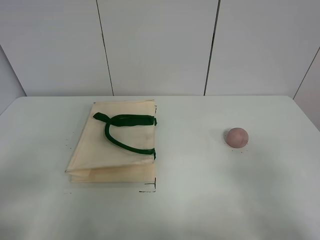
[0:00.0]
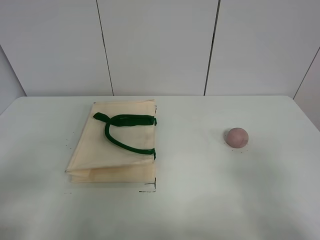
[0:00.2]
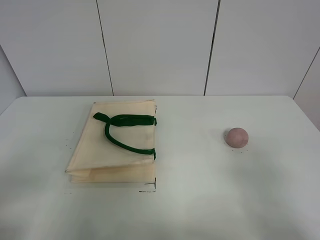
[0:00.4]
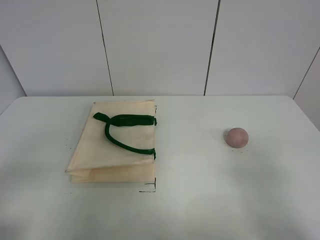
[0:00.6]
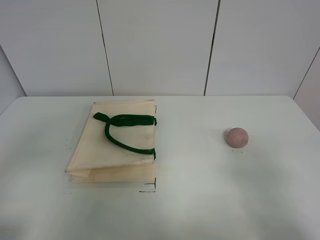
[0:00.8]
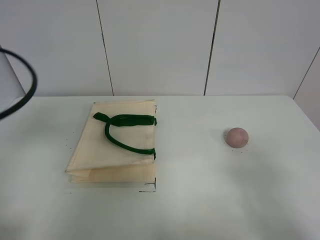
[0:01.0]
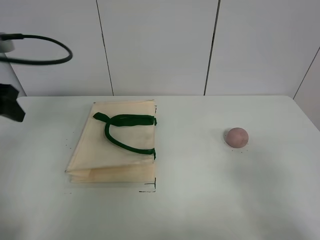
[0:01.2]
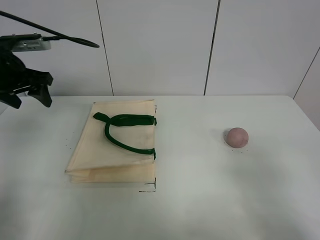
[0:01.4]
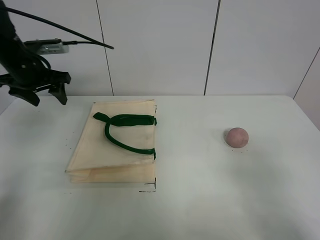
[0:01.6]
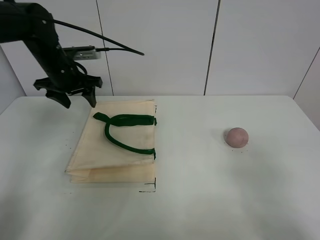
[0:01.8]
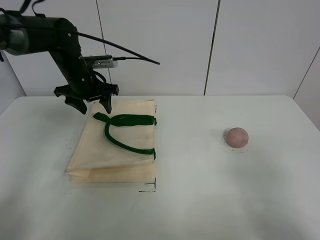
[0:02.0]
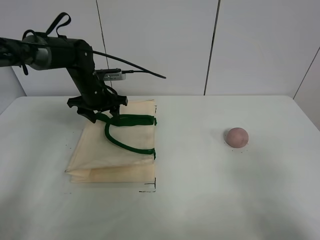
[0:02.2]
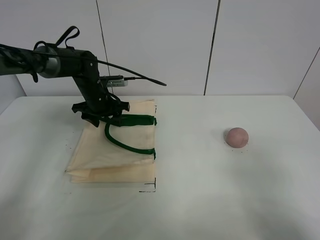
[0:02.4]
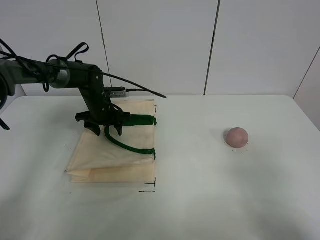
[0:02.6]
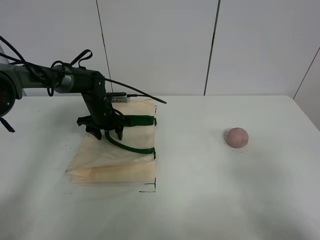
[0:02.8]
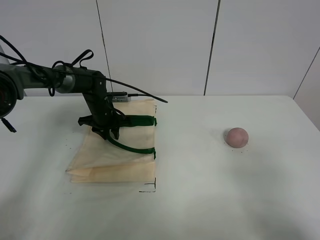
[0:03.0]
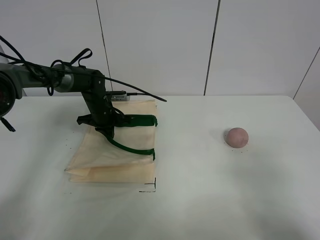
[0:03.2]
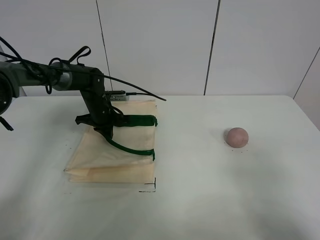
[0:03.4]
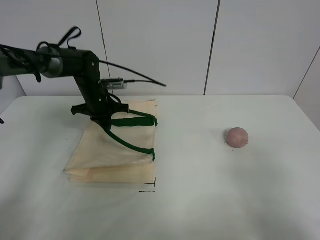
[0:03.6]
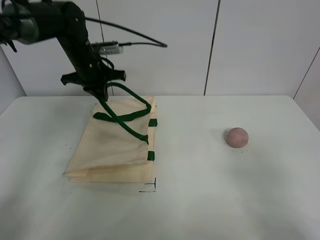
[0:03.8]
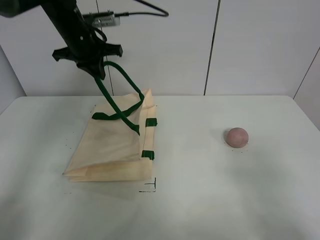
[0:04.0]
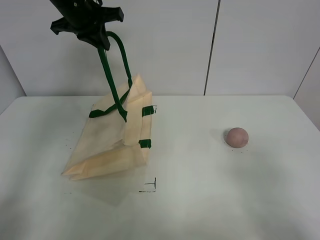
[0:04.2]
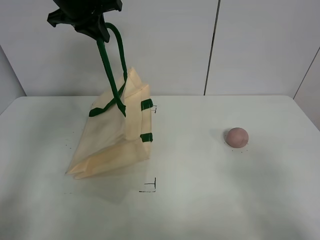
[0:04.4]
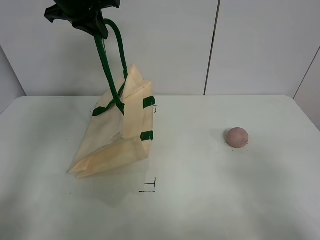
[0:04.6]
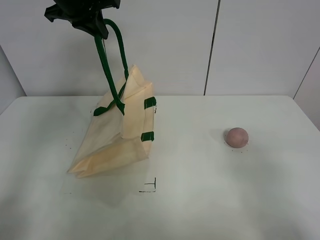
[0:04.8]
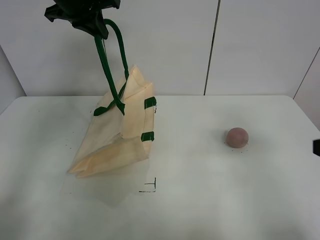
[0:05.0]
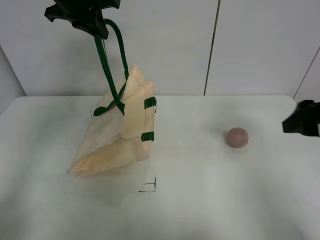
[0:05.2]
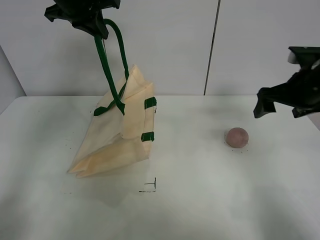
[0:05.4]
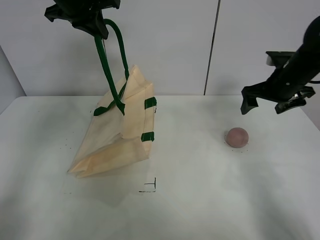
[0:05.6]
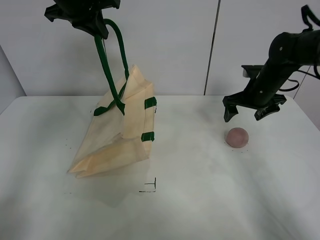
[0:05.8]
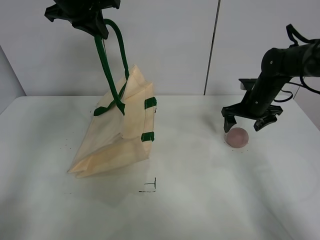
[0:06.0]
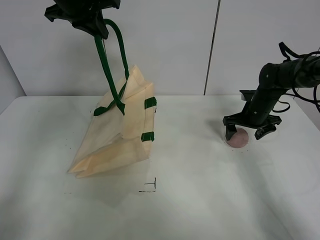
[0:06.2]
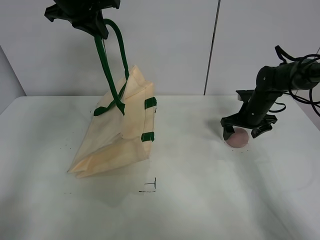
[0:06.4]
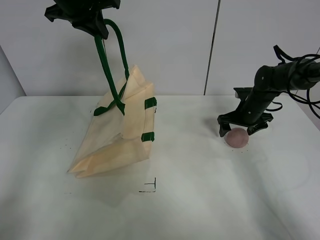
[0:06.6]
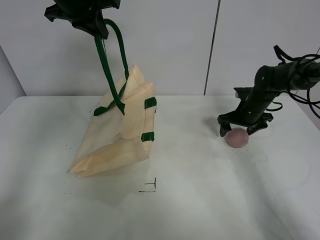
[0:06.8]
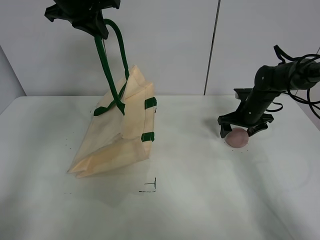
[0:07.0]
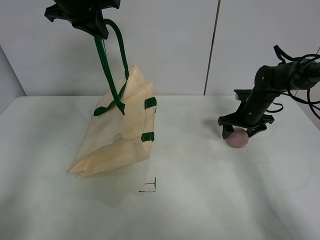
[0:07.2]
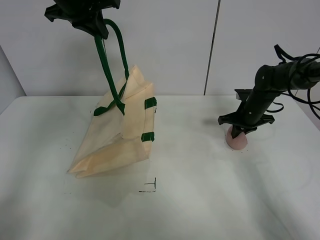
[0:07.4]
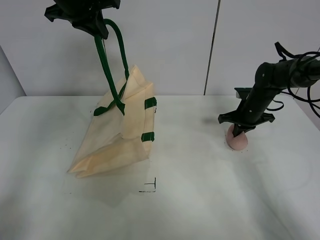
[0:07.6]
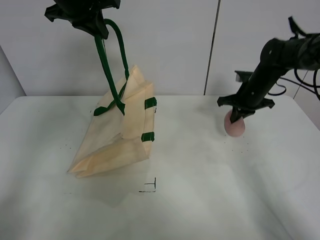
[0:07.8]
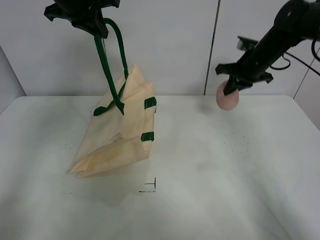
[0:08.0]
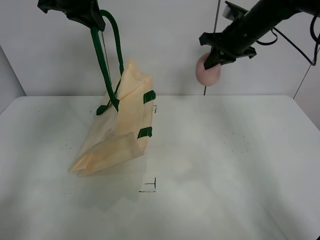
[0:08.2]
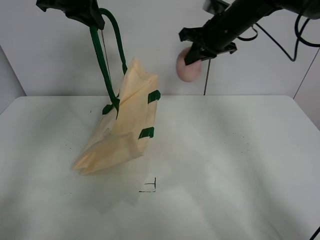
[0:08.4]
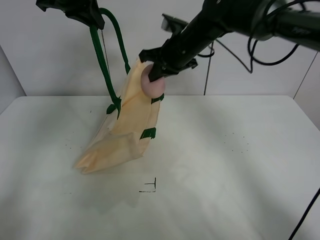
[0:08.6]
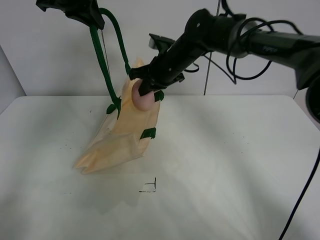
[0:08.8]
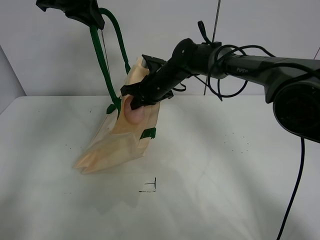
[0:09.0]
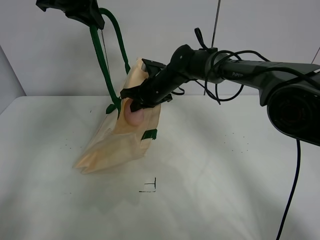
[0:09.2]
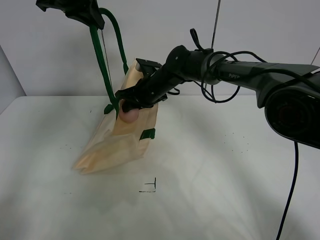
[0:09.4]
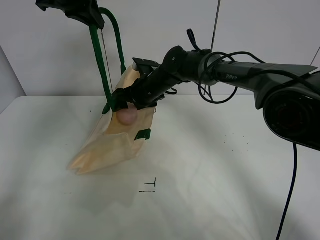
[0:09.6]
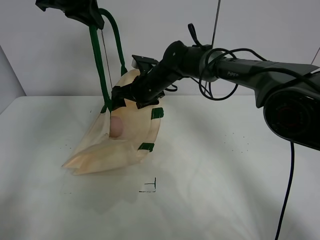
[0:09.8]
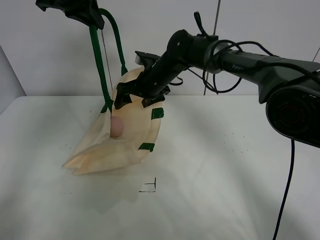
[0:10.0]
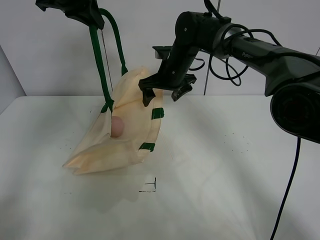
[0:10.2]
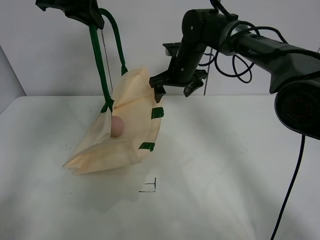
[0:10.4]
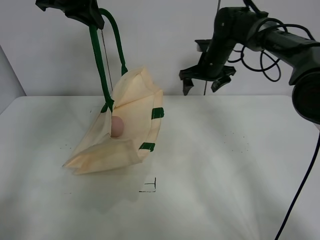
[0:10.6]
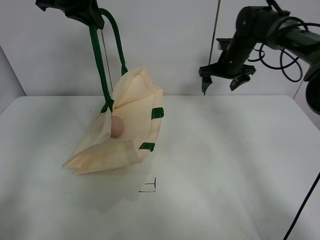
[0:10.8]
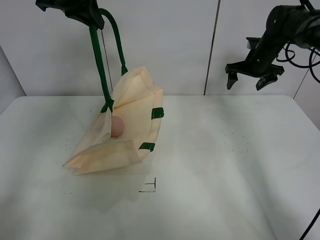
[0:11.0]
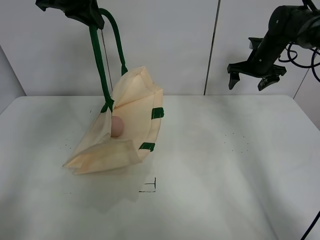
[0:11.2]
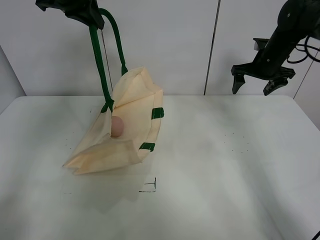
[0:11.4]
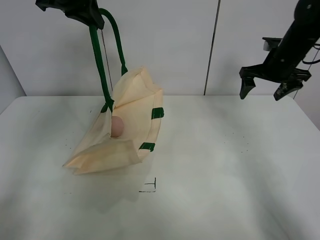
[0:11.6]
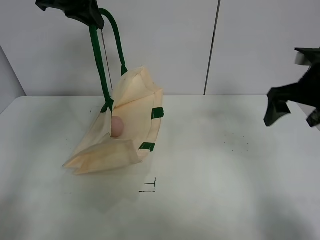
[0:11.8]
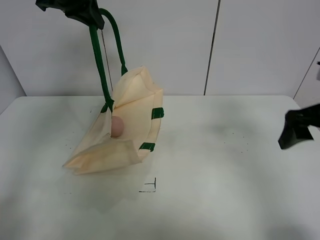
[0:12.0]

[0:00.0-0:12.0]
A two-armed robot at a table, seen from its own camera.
Task of the whole recording: open the white linen bag and put the peach in the bag.
Step, 0:00.0 to 0:04.4: Lift the handbag with left gripper.
Step, 0:04.6 to 0:07.6: Grasp the peach with right gripper.
Step, 0:07.8 to 0:09.8: Place the peach in the handbag with right gripper.
0:01.6 to 0:03.0: The left gripper travels downward, to the right and forward by approximately 25 cm.
0:03.0 to 0:04.4: The left gripper goes approximately 30 cm upward, and closes up.
0:04.4 to 0:06.0: The right gripper goes approximately 40 cm forward.
0:06.0 to 0:07.6: The right gripper heads downward, covering approximately 5 cm, and closes its fingers.
0:07.6 to 0:09.0: The right gripper heads to the left and upward, covering roughly 25 cm.
0:09.0 to 0:10.4: The right gripper opens.
0:10.4 to 0:12.0: The right gripper is displaced to the right and backward by approximately 30 cm.

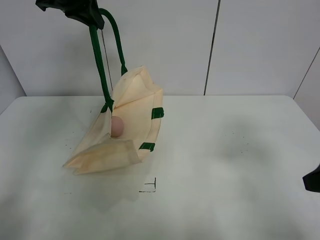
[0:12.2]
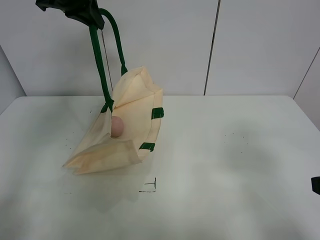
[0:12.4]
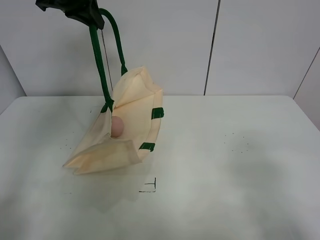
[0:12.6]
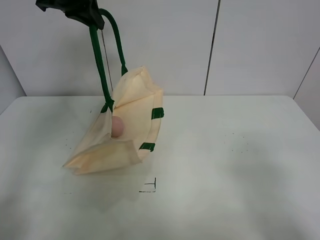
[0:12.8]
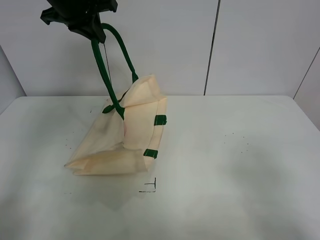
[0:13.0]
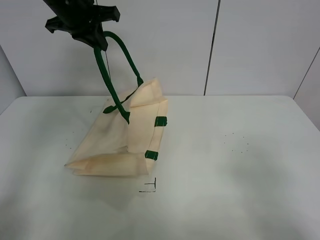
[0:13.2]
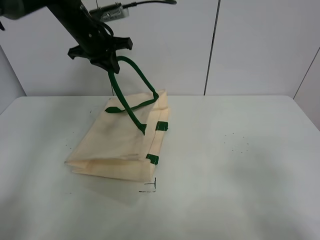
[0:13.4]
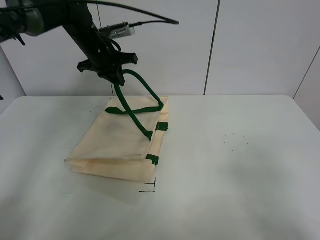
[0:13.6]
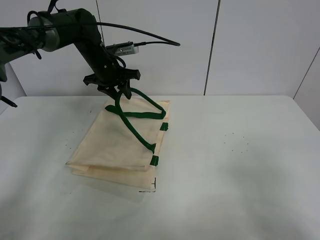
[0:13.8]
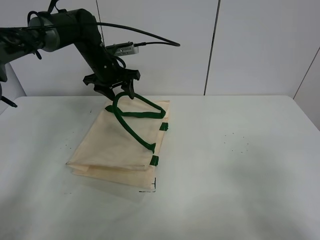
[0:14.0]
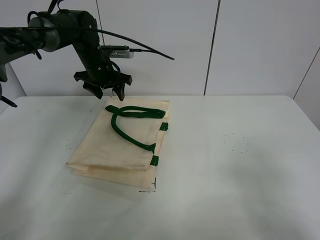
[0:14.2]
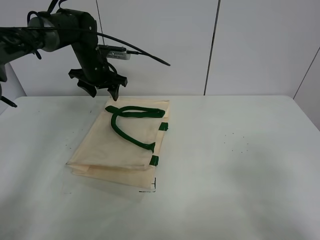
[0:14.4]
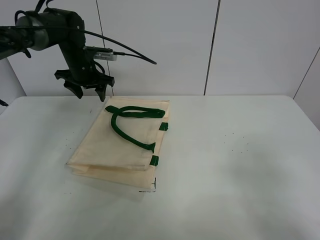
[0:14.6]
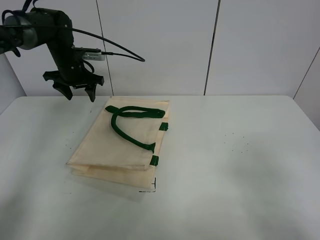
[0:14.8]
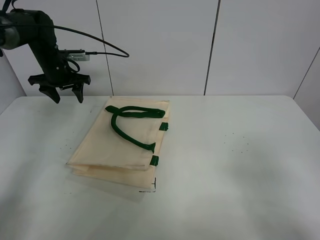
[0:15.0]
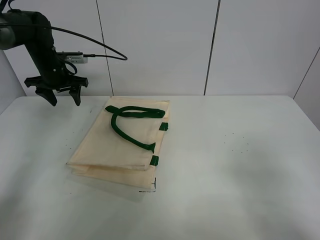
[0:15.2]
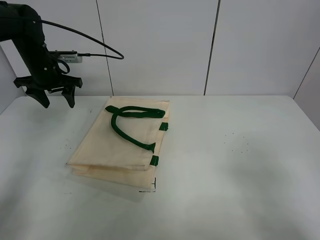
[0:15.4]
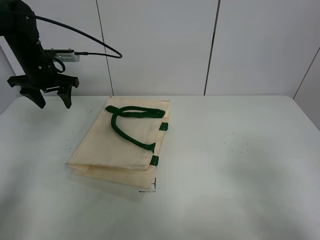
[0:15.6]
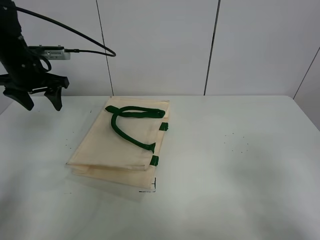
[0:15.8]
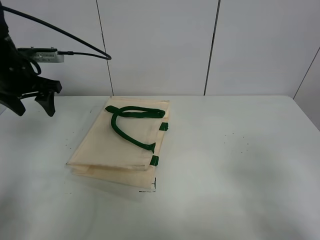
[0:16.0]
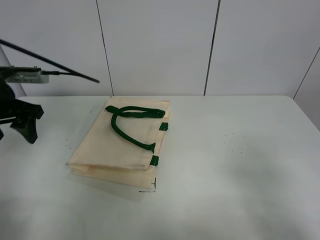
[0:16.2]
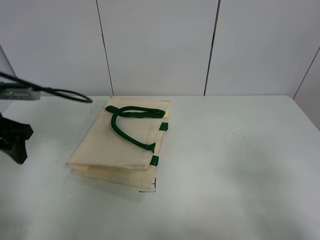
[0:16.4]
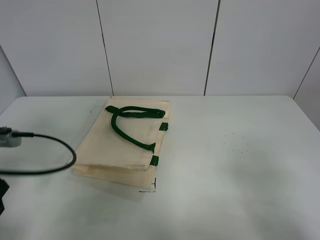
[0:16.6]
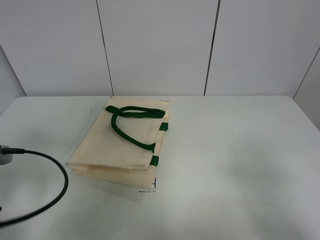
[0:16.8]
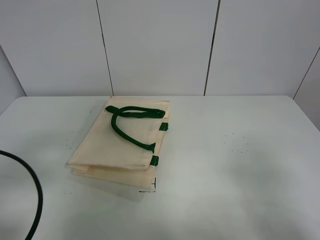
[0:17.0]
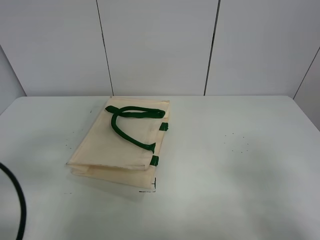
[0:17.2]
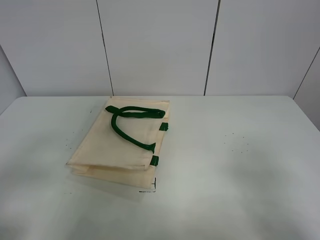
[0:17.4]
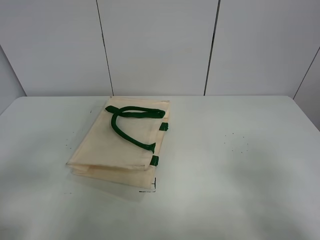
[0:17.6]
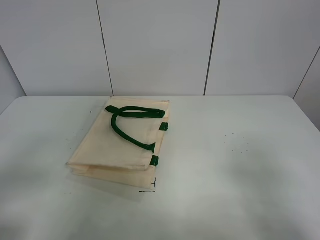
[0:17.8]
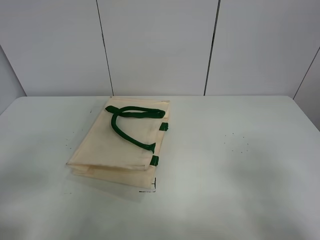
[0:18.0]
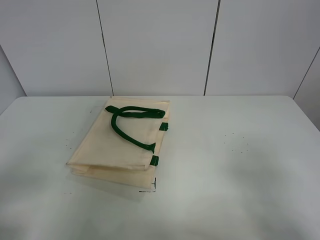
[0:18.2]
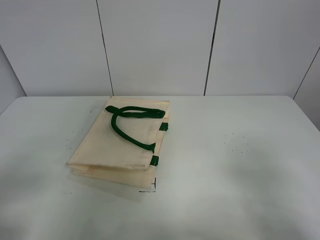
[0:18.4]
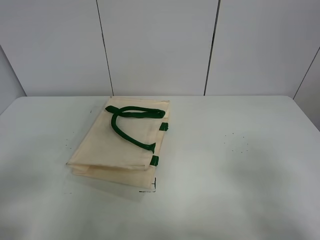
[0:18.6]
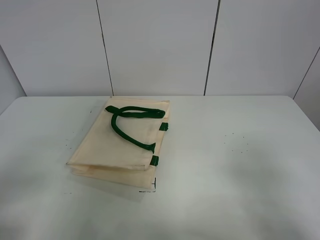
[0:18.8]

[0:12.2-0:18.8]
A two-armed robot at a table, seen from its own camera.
Task of the whole recording: open the white linen bag and put the peach in the bag.
Step, 0:12.2 to 0:14.4: Put down the handbag with left gripper.
0:12.2 to 0:13.8: The left gripper heads downward, covering approximately 20 cm. The right gripper goes approximately 15 cm backward.
0:13.8 to 0:15.4: The left gripper moves to the left, about 15 cm, and opens its fingers.
0:15.4 to 0:17.2: The left gripper travels backward by about 40 cm.
0:17.2 to 0:18.8: The left gripper heads backward, covering some 10 cm.

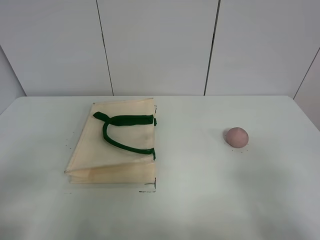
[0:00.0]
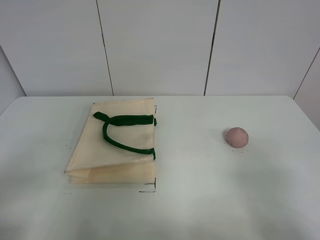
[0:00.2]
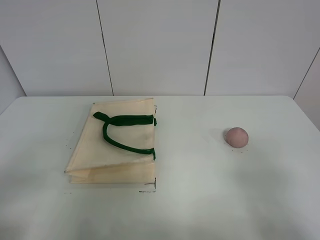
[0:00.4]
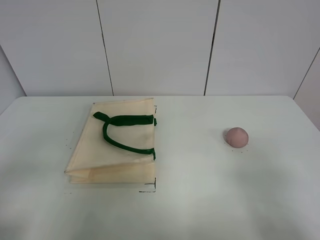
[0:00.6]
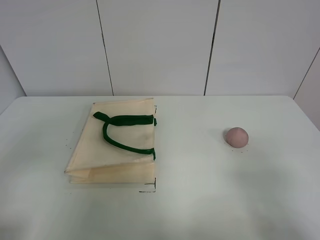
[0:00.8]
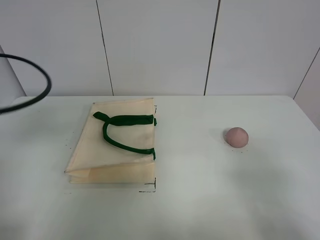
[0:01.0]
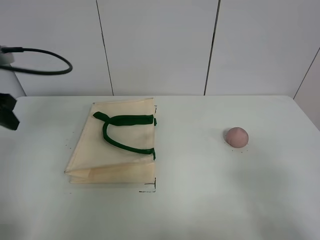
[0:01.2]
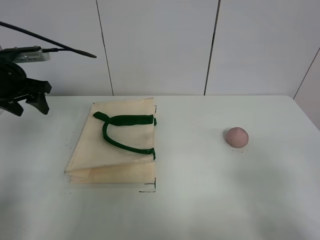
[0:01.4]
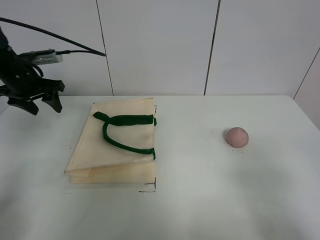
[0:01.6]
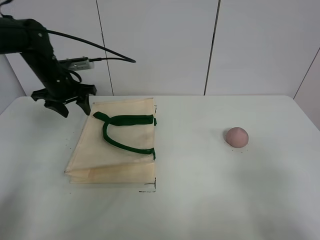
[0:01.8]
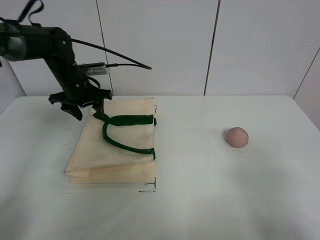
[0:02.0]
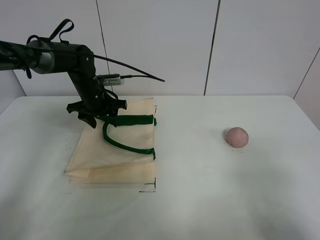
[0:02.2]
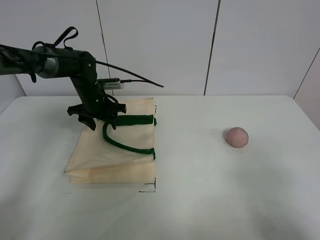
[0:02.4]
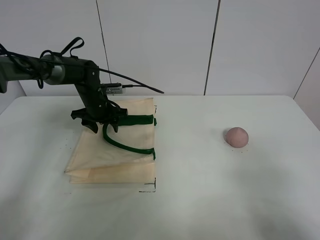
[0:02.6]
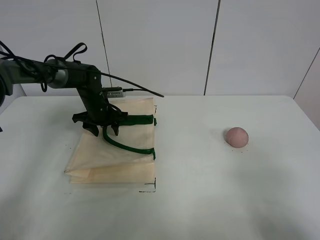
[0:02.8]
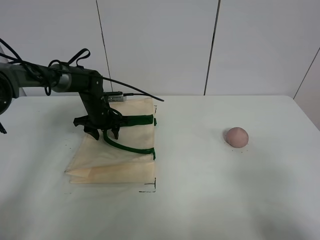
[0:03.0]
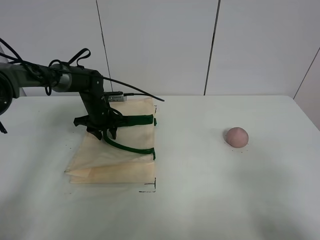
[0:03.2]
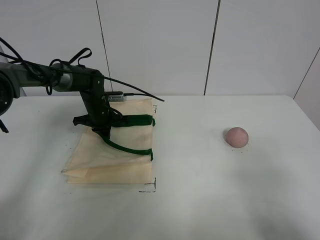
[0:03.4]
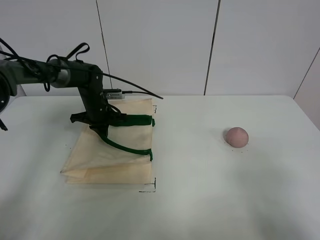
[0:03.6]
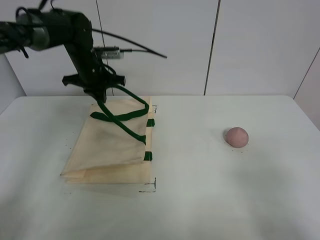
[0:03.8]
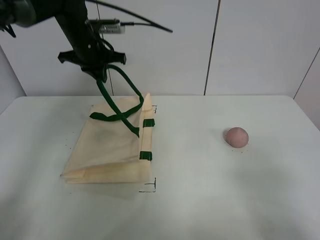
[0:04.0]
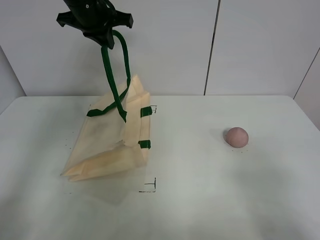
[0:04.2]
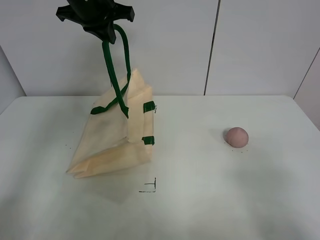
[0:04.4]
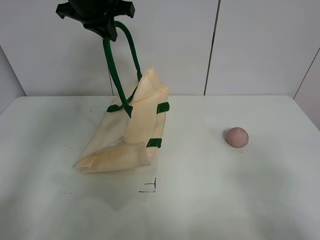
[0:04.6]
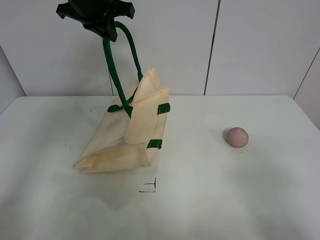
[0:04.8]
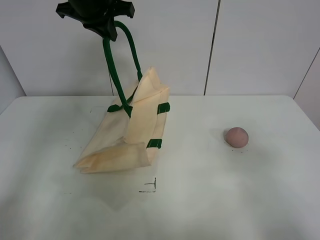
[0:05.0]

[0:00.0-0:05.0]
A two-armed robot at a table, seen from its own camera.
Task of the whole recording: open the white linen bag and put the peach in the bag.
Step, 0:00.0 to 0:04.0: Lift the handbag with left gripper.
0:00.0 to 0:01.6: The left gripper shifts about 40 cm forward.
0:01.6 to 0:03.4: The left gripper is displaced downward, to the right and forward by some 20 cm, and closes.
0:03.4 to 0:05.0: The right gripper is displaced forward by some 5 cm, while the left gripper heads upward, covering some 30 cm.
